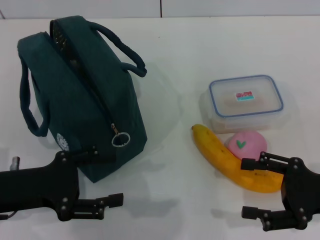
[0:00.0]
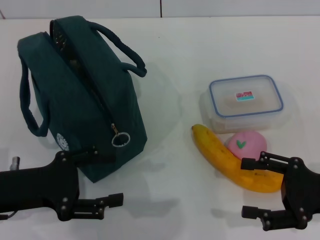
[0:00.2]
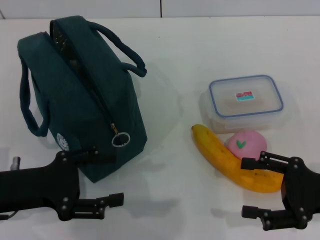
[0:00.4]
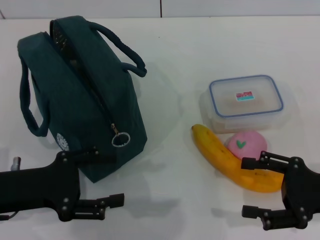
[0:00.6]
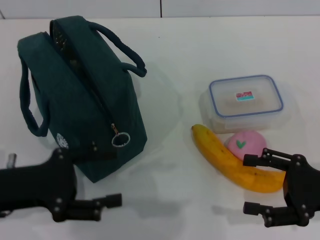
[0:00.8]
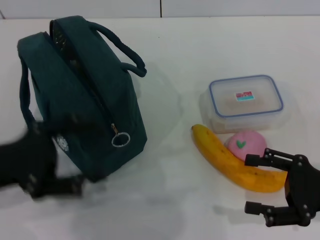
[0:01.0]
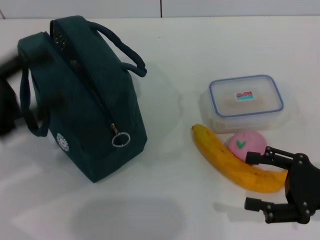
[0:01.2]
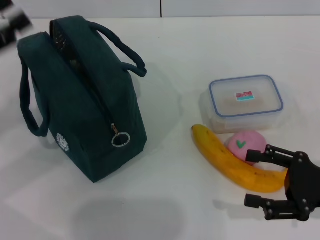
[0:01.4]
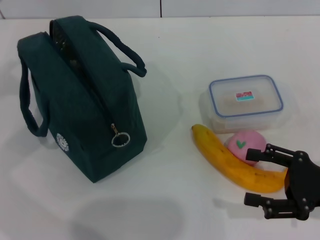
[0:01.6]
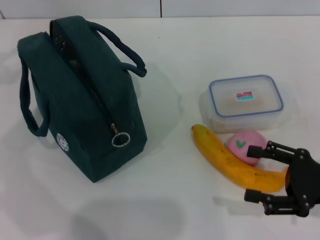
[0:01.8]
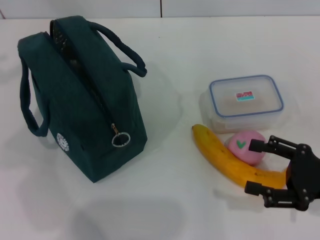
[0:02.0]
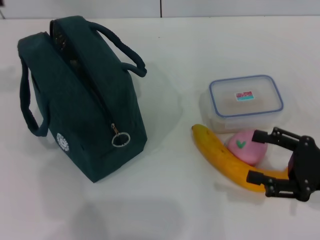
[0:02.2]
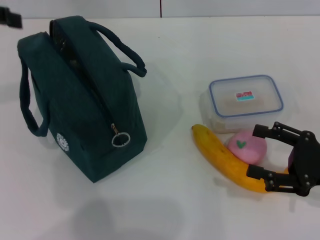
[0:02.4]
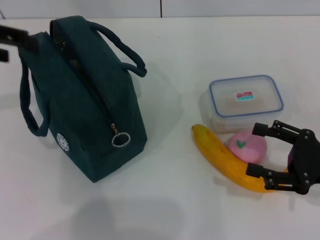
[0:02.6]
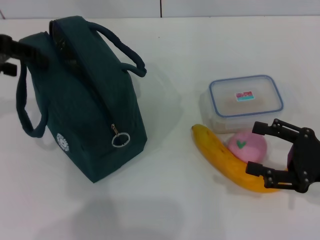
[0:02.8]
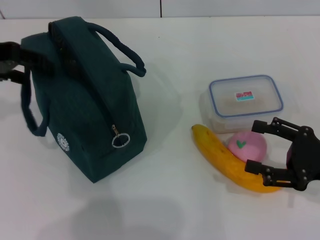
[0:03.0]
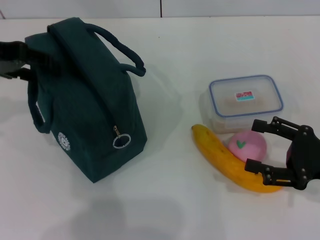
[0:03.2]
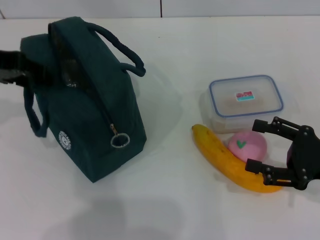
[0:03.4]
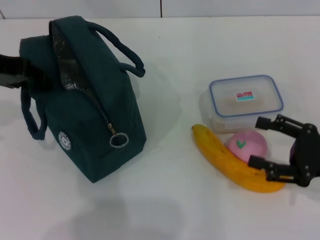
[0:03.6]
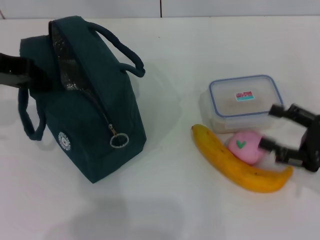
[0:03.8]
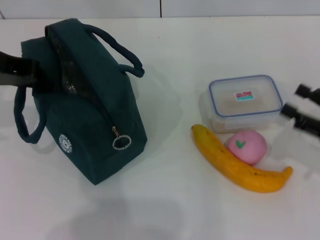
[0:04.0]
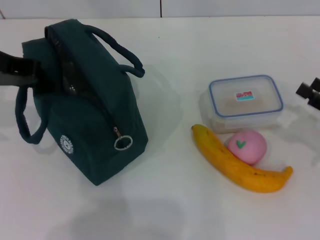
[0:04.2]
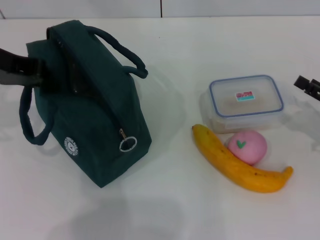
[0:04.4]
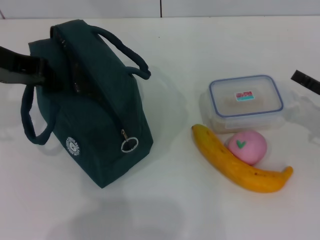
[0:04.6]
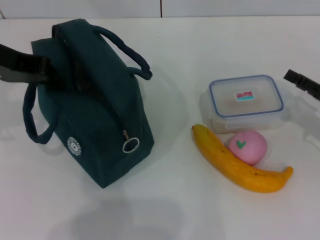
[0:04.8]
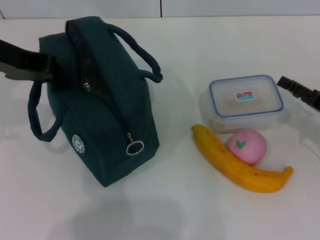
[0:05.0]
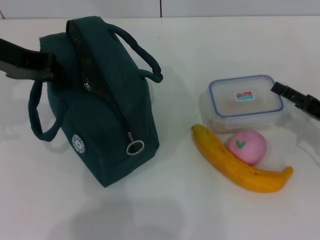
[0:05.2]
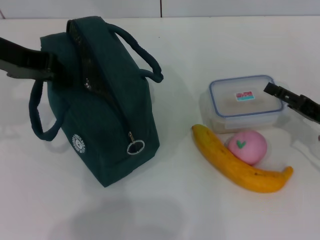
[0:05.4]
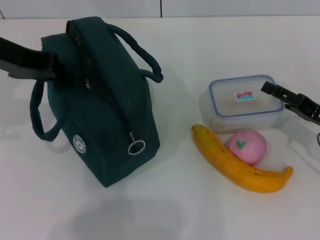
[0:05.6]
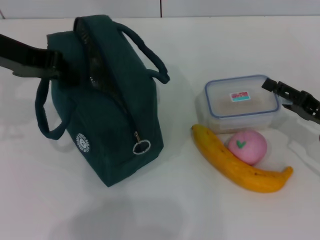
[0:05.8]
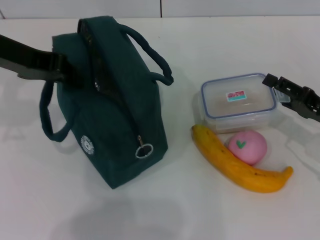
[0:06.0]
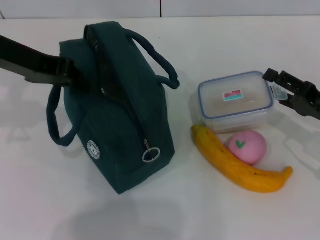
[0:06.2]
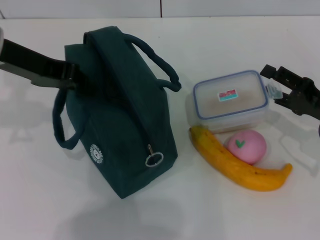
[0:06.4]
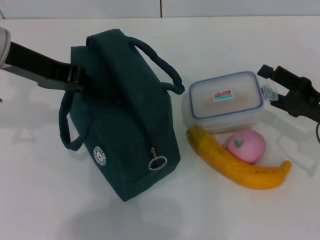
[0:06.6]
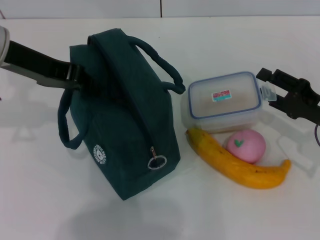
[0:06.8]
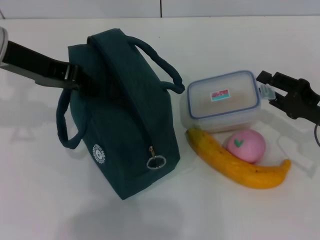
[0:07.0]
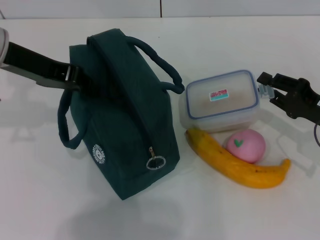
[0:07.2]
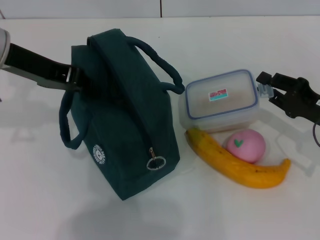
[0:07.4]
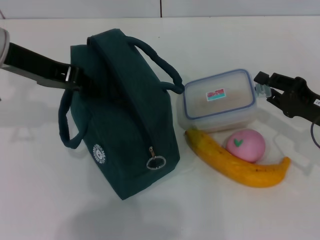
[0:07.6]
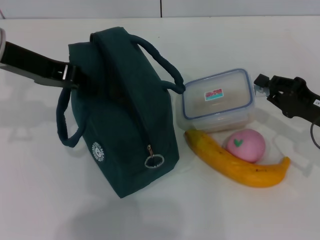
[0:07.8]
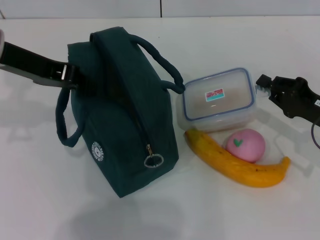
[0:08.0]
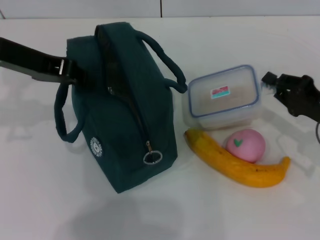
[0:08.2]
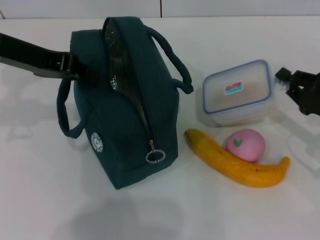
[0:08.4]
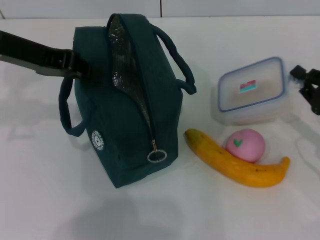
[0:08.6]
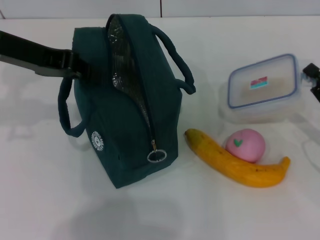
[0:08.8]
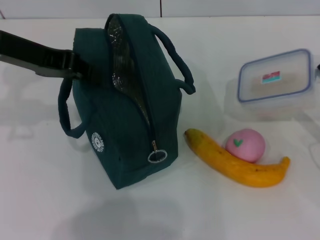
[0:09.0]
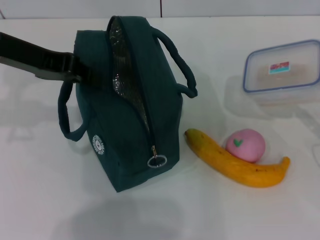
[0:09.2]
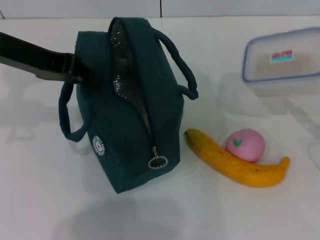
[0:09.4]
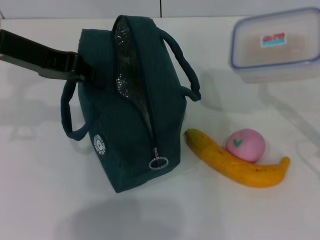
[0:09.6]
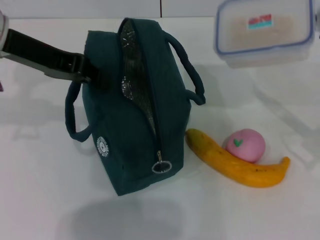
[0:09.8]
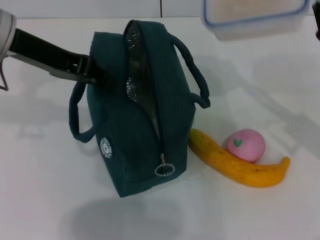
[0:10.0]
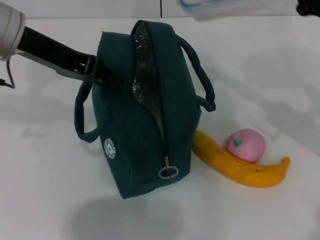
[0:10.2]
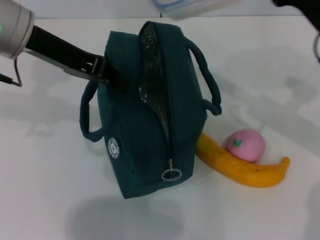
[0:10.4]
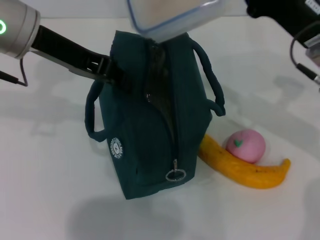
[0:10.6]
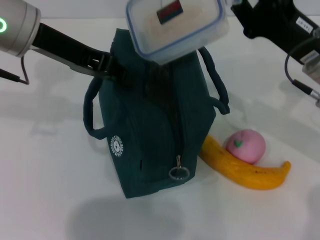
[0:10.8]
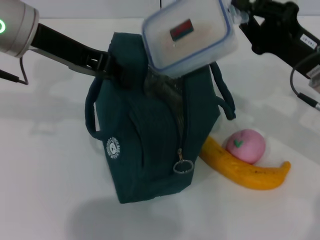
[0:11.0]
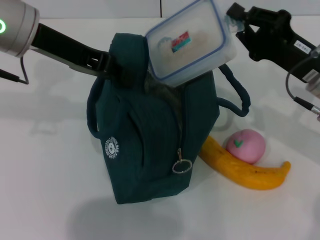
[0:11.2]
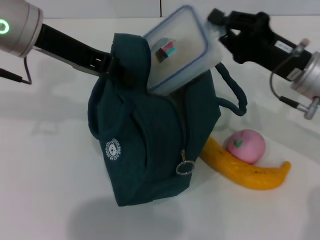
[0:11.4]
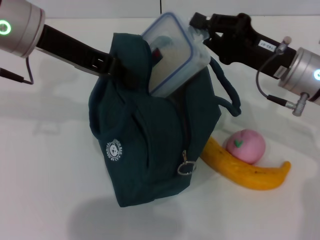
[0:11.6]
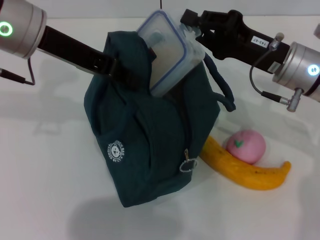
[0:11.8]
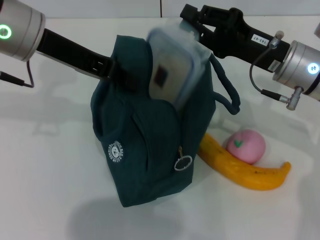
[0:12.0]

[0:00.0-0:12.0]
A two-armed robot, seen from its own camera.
Step, 0:00.0 to 0:03.8: Hold the lunch bag with your left hand.
Step, 0:04.0 to 0:08.0: Pick up the lunch box with your right hand.
0:00.0 to 0:01.6: The left gripper travels forward, upward and to the left by about 15 cm.
0:01.6 to 0:03.0: The left gripper heads upward and to the right, covering roughly 10 cm.
0:03.0 to 0:04.4: The left gripper closes up; the right gripper moves some 5 cm.
0:06.0 to 0:07.6: The right gripper closes.
0:07.6 to 0:09.0: The right gripper moves about 5 cm.
0:09.0 to 0:10.4: The right gripper is displaced to the left, upward and forward by roughly 15 cm.
0:10.4 to 0:12.0: The right gripper shifts by some 5 cm.

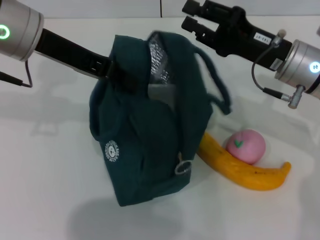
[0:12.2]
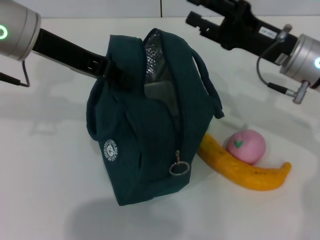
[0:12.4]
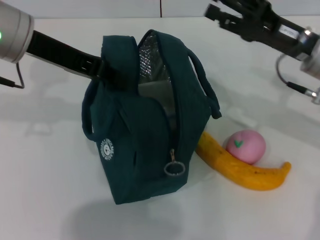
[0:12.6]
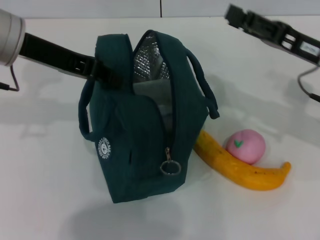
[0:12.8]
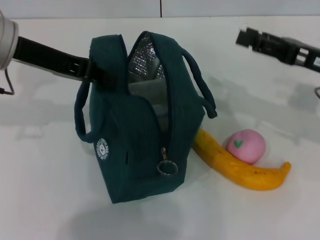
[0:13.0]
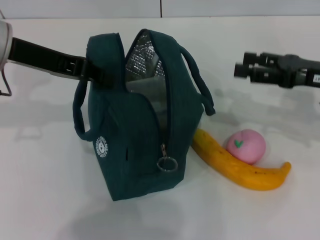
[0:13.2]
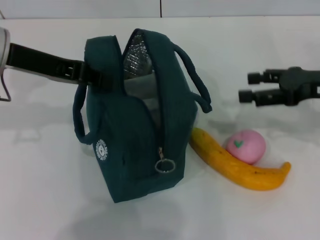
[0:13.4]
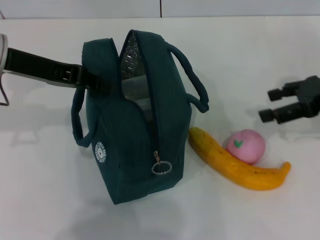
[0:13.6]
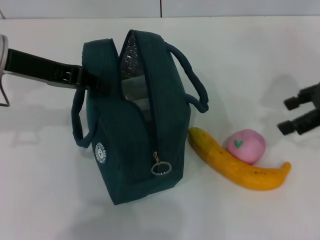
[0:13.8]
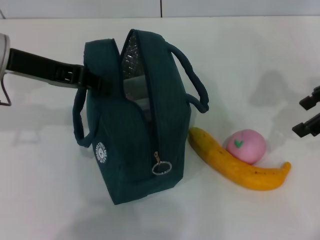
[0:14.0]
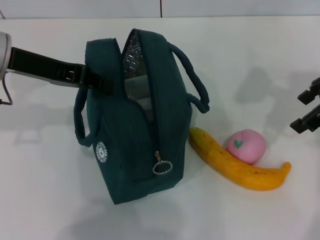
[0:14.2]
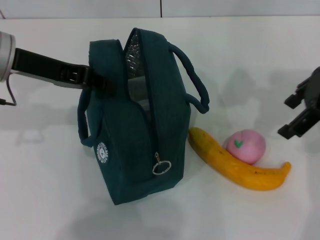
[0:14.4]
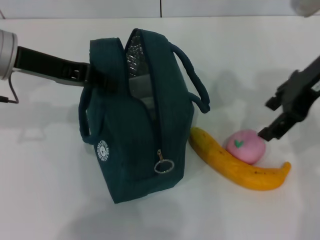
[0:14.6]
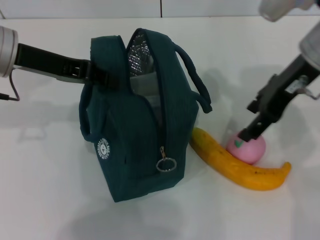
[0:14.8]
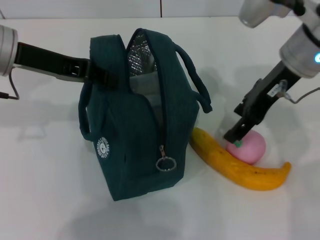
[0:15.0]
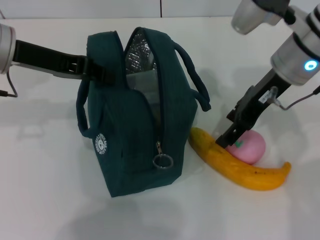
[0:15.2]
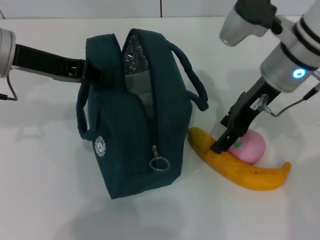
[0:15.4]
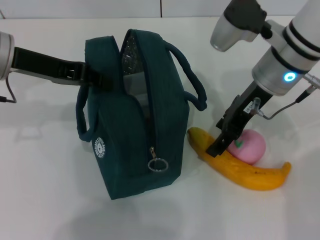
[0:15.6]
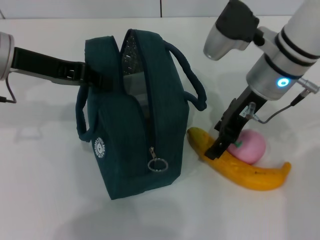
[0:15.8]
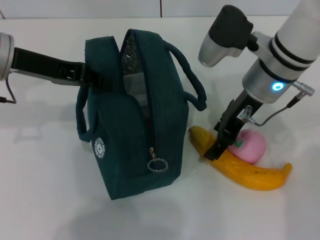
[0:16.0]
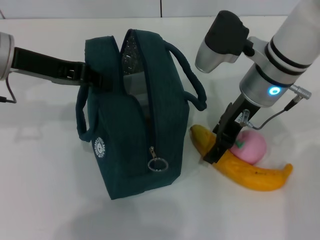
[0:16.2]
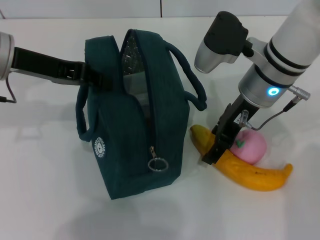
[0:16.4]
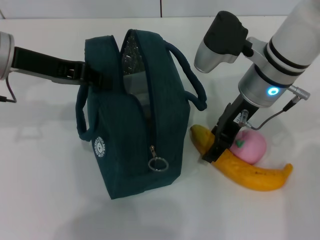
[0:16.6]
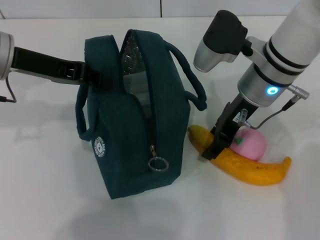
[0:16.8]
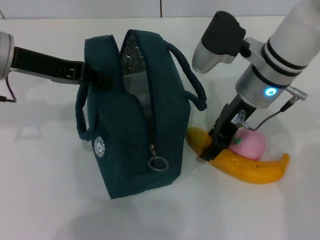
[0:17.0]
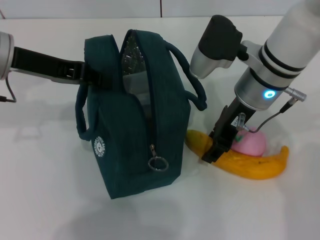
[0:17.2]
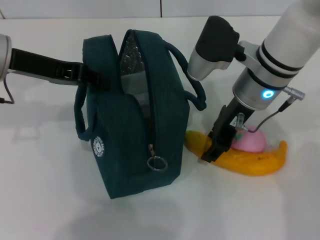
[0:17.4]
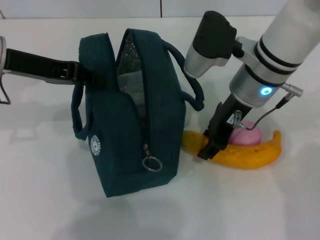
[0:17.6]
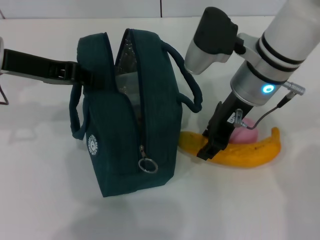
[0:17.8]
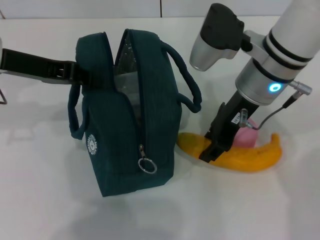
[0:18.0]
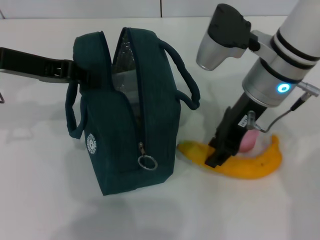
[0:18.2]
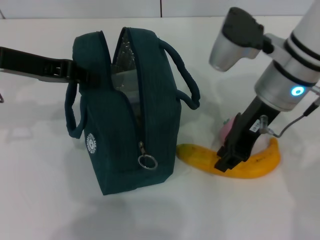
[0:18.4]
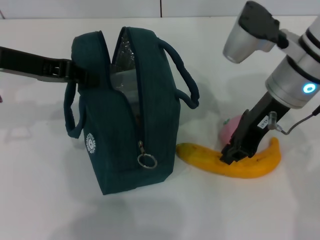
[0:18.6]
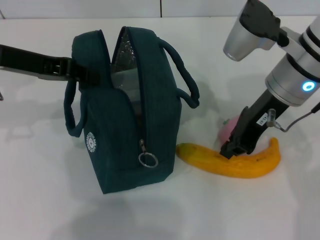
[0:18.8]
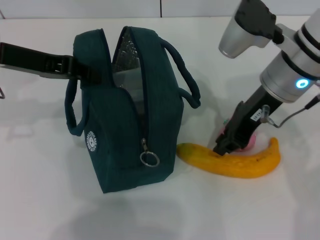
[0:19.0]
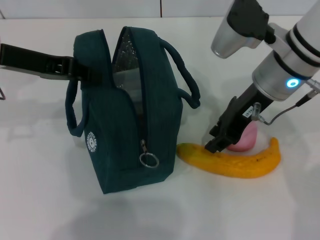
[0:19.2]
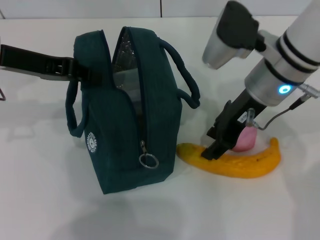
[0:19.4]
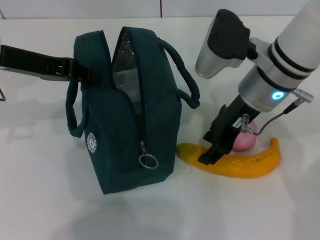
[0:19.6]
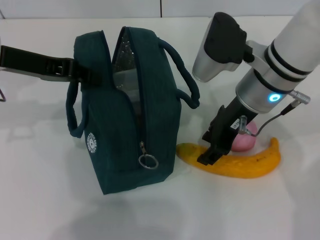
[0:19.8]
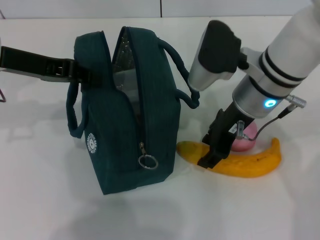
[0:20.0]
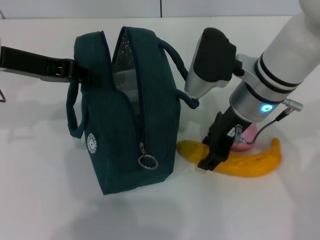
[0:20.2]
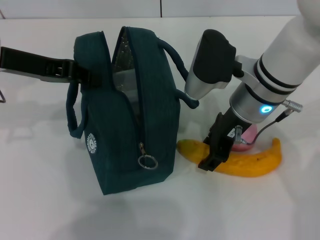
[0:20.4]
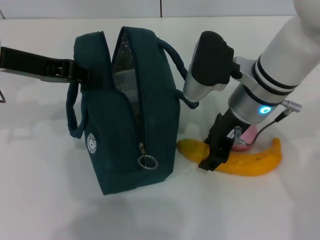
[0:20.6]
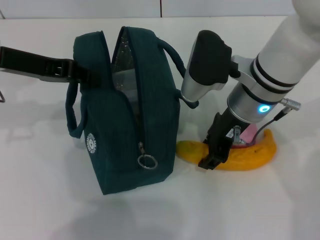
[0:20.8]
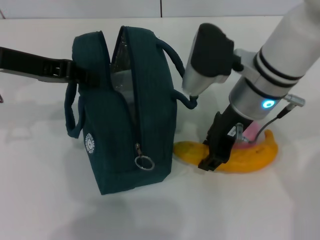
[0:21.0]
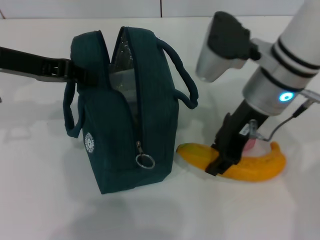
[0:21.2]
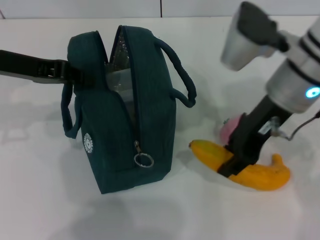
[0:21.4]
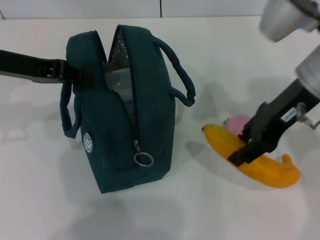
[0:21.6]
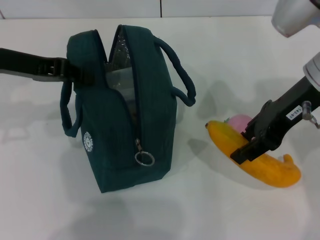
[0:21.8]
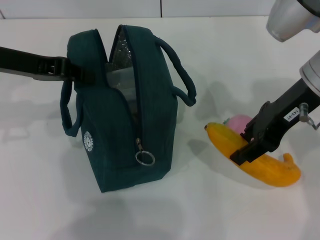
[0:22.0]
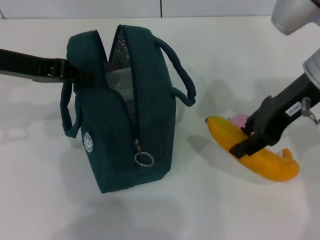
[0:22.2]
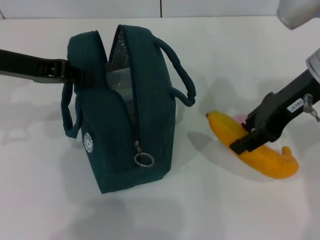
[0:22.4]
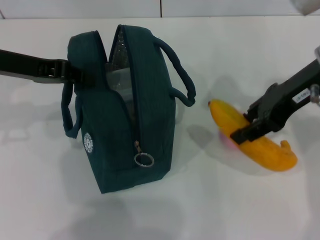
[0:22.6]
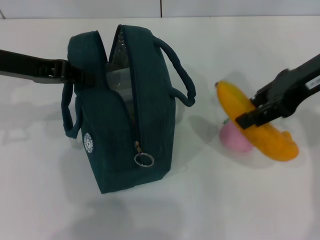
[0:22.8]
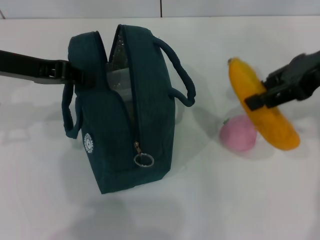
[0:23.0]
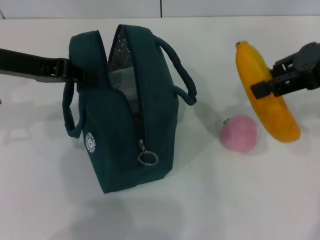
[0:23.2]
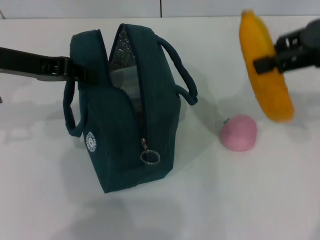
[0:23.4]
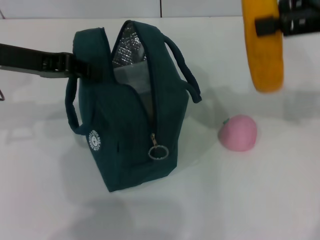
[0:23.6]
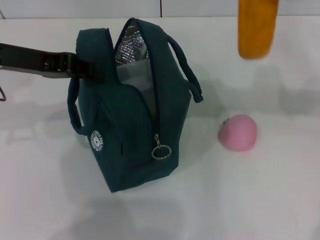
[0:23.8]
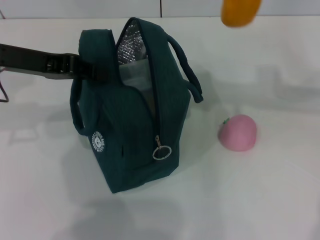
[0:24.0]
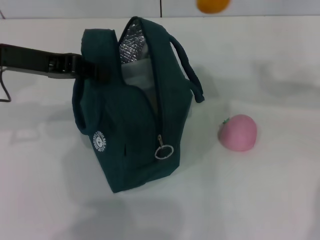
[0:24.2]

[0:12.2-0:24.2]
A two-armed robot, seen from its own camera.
Step, 0:12.6 to 0:20.6: Take the banana with your right hand.
0:12.2 to 0:13.8: The left gripper changes place by some 5 cm. The right gripper goes approximately 15 cm to the right and upward, and opens up.
0:13.8 to 0:15.2: The right gripper heads to the left, covering some 15 cm.
0:15.2 to 0:16.6: The right gripper changes place by some 5 cm.
0:16.6 to 0:18.2: The right gripper closes its fingers.
0:18.2 to 0:19.8: The right gripper closes and opens again.
0:19.8 to 0:21.2: The grippers move only a little.
0:21.2 to 0:22.6: The right gripper shifts some 10 cm to the right.
0:22.6 to 0:24.2: The right gripper moves upward, approximately 10 cm.
